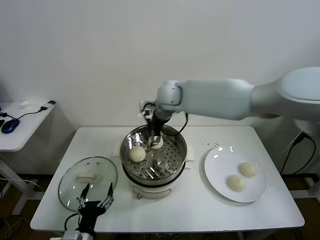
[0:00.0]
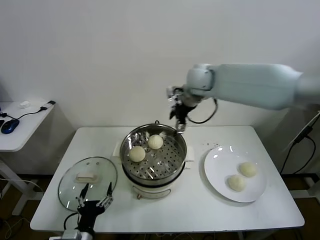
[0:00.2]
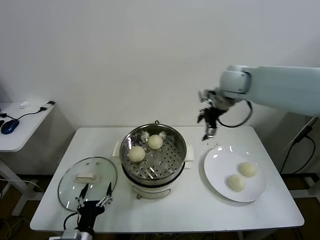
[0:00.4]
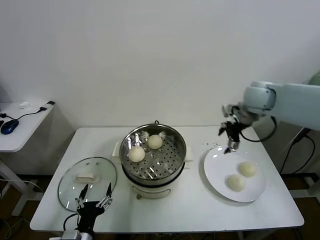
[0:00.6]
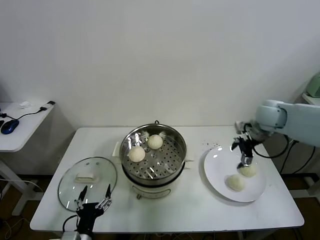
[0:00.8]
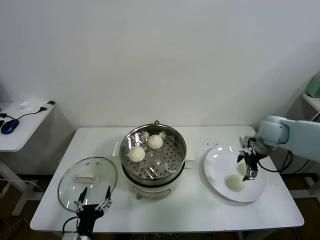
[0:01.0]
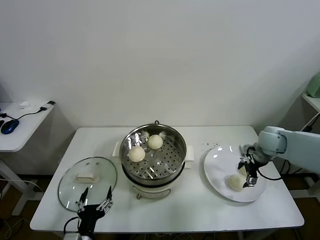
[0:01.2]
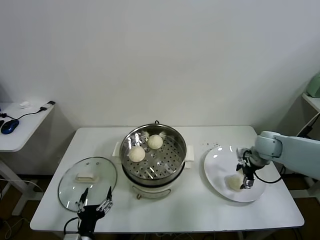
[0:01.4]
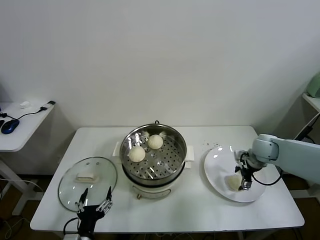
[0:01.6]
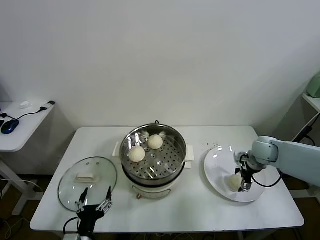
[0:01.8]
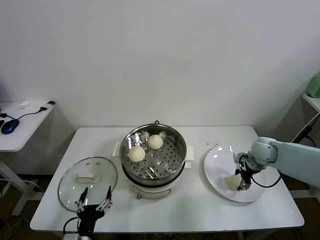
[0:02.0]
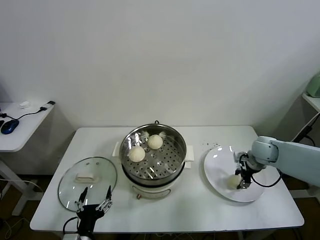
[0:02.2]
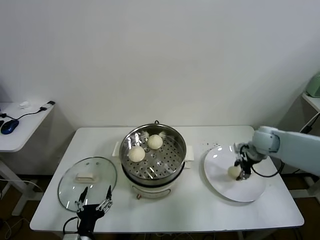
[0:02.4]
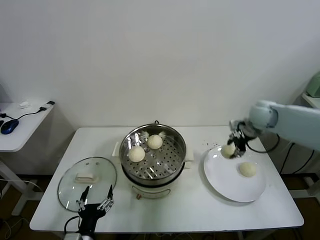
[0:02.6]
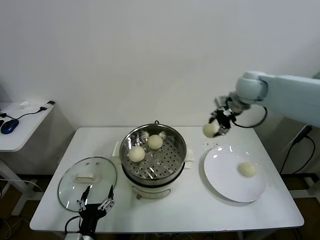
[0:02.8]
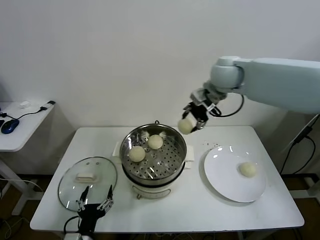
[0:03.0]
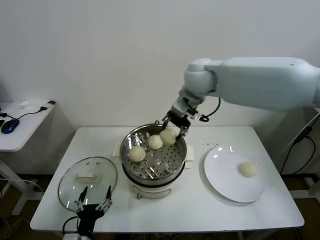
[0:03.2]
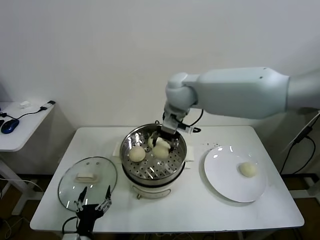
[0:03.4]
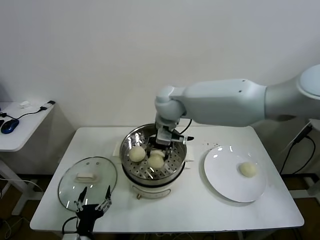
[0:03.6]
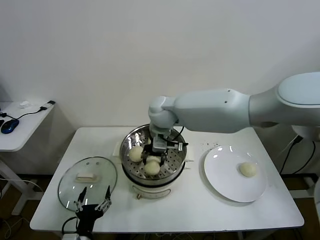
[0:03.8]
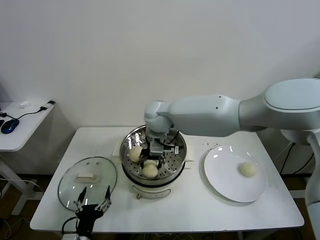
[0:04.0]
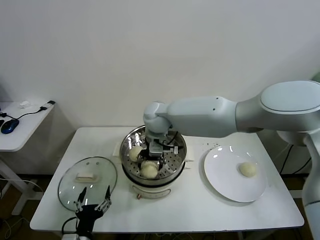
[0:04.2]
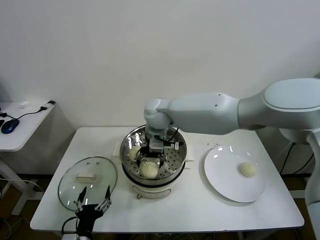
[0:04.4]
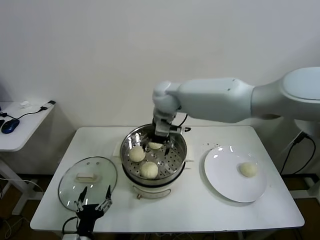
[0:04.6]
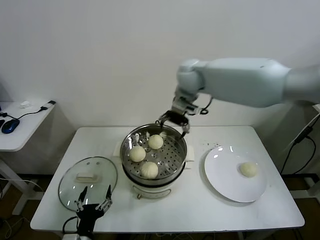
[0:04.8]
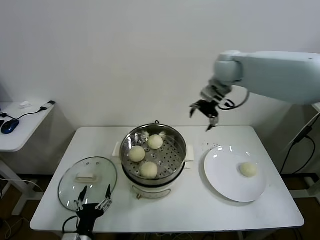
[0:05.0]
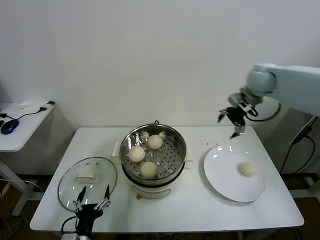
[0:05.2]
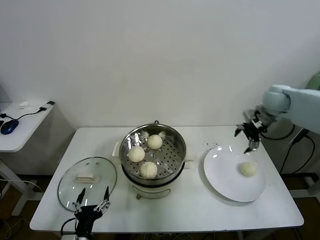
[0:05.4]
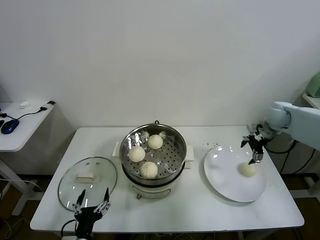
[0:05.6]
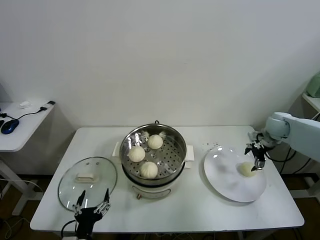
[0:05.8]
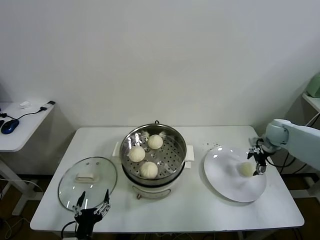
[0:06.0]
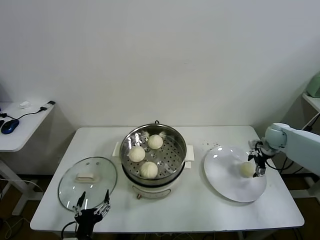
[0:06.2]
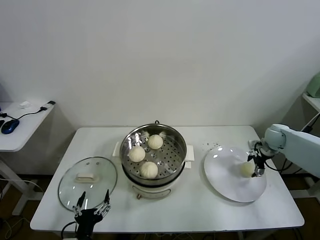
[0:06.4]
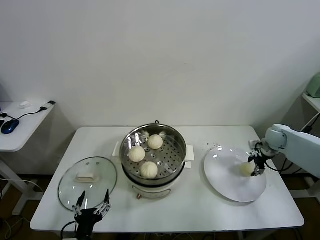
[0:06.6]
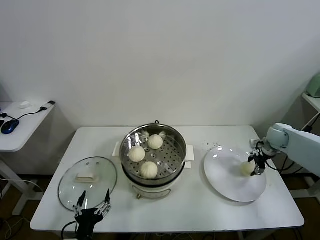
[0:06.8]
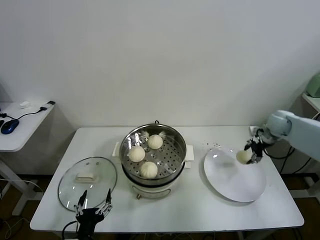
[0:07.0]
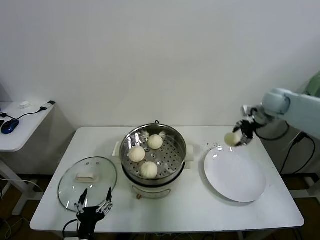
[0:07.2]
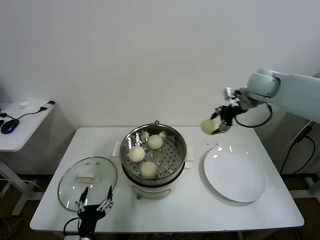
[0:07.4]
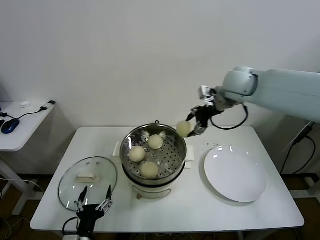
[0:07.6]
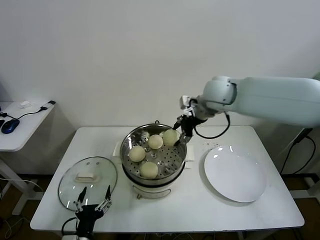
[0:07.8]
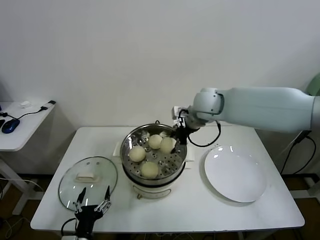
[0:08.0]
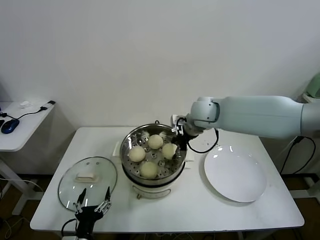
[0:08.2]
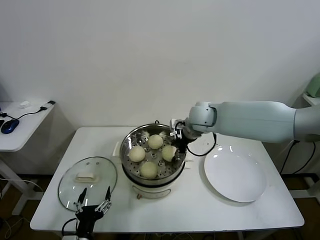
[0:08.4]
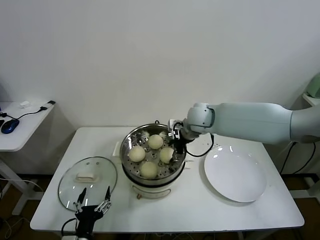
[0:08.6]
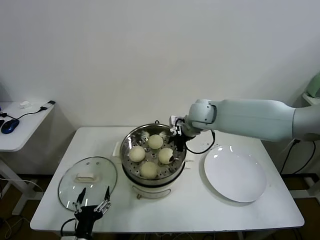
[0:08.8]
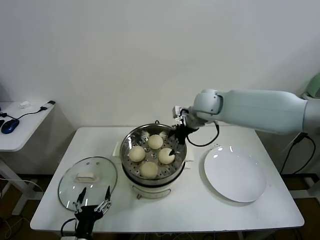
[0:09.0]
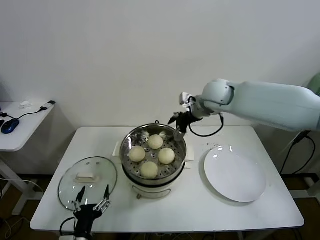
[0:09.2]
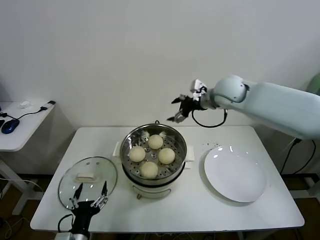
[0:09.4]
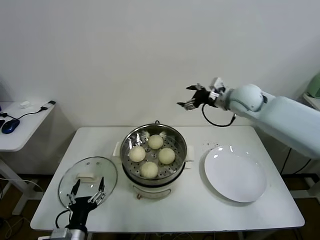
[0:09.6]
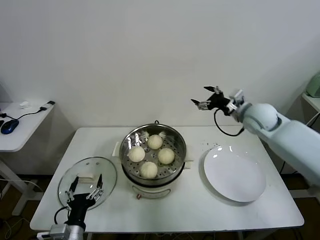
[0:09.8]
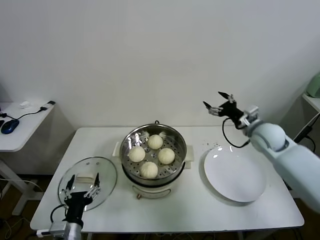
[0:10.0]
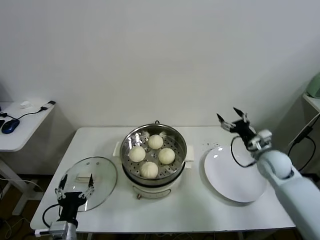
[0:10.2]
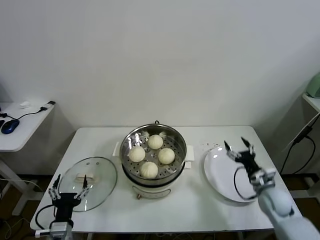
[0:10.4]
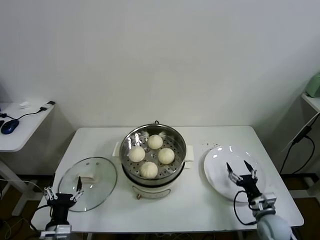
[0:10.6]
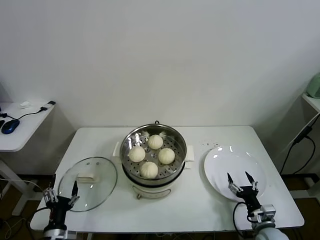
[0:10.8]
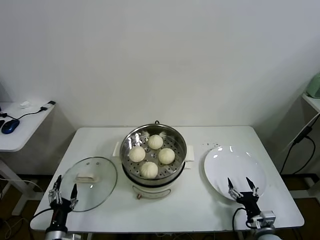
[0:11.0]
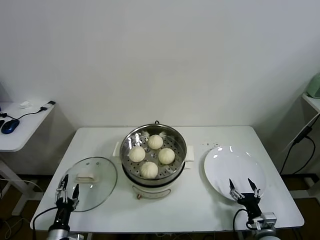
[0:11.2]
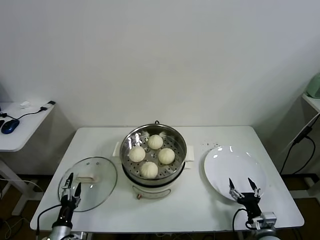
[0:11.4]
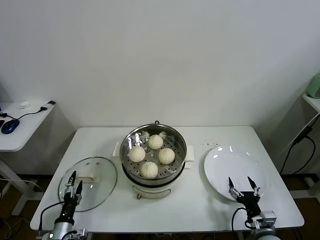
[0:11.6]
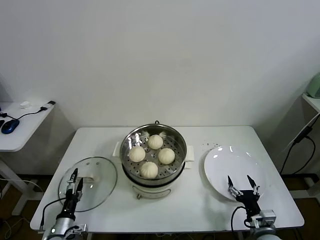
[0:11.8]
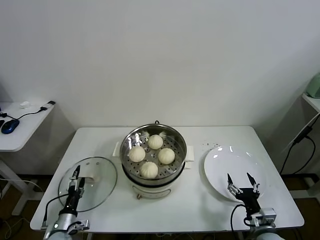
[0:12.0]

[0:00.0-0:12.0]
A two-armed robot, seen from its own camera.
Task of the whole recording: take steamed baozi put them in steamer.
Step, 0:00.0 to 0:02.0: Grasp the baozi in the plate with right gripper.
Step, 0:02.2 to 0:04.2: Place the baozi on the steamer with right gripper.
Step, 0:04.6 to 0:06.4: Grasp the baozi in the plate with right gripper.
Step, 0:06.6 to 0:08.6: Place the baozi on the steamer with right gripper.
0:00.0 to 0:01.6: The right gripper goes some 35 cm to the right and downward.
0:01.6 to 0:03.0: The right gripper is displaced upward and to the left by approximately 35 cm, and closes its fingers.
0:03.0 to 0:04.4: The right gripper shifts about 20 cm to the left and downward, and opens.
0:04.4 to 0:06.0: The right gripper heads to the right, covering roughly 50 cm.
0:06.0 to 0:07.6: The right gripper is displaced to the left and upward by some 30 cm, and closes its fingers.
0:07.6 to 0:09.0: The right gripper is displaced downward and to the left by roughly 10 cm, and opens its fingers.
0:09.0 to 0:10.4: The left gripper travels to the left by some 5 cm; the right gripper goes about 40 cm downward, to the right and backward.
0:10.4 to 0:12.0: The left gripper goes about 15 cm downward, to the left and forward; the right gripper moves backward, roughly 15 cm.

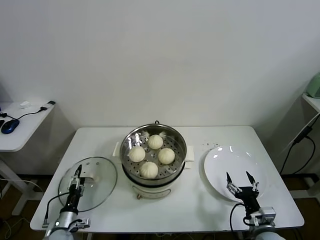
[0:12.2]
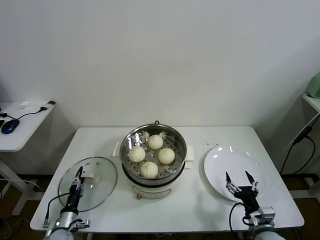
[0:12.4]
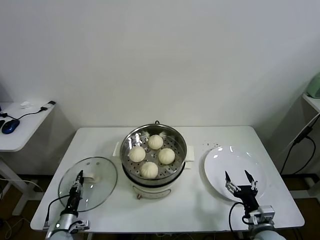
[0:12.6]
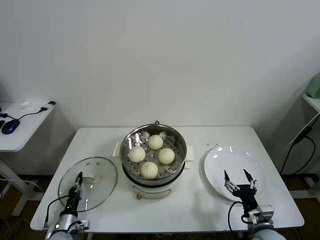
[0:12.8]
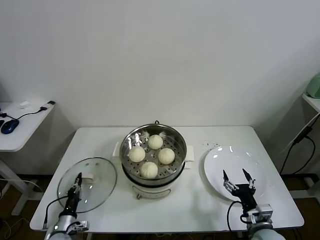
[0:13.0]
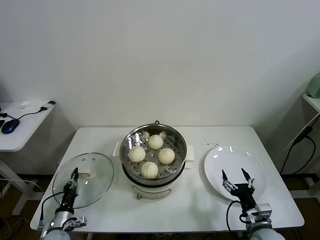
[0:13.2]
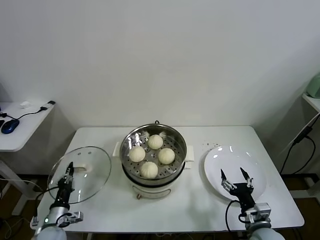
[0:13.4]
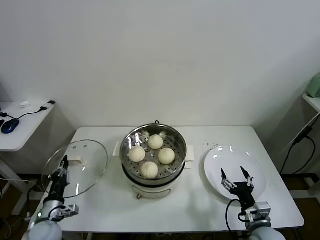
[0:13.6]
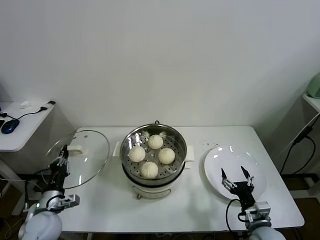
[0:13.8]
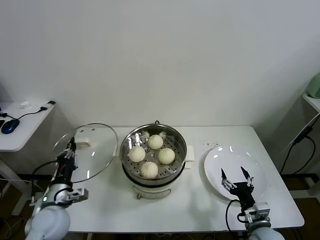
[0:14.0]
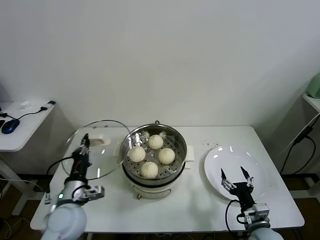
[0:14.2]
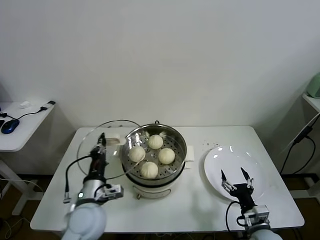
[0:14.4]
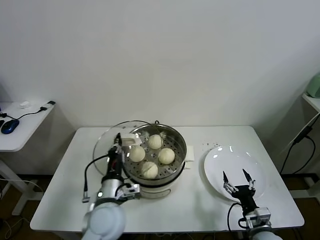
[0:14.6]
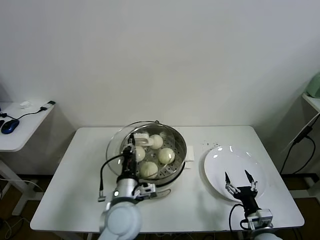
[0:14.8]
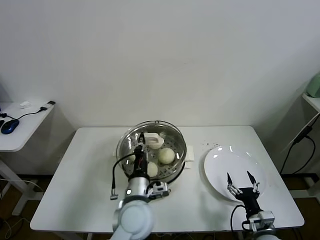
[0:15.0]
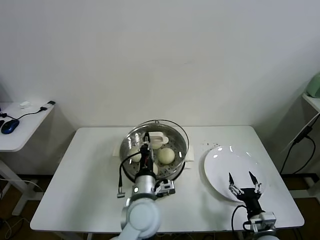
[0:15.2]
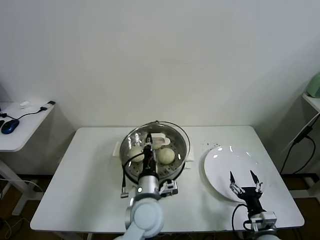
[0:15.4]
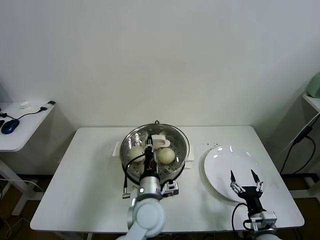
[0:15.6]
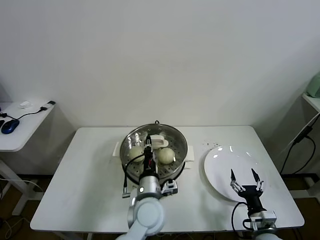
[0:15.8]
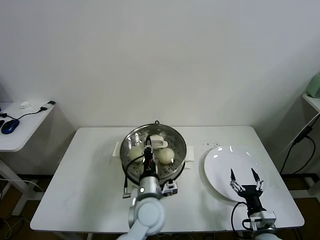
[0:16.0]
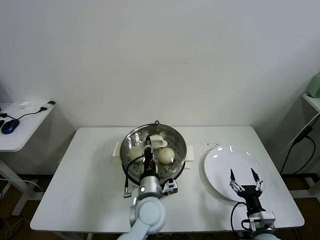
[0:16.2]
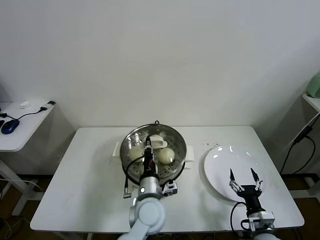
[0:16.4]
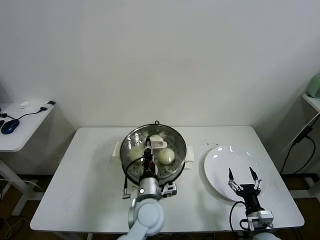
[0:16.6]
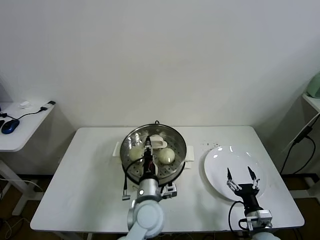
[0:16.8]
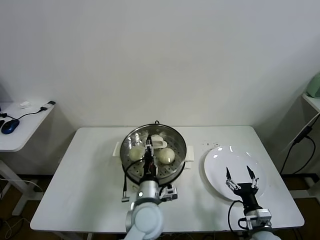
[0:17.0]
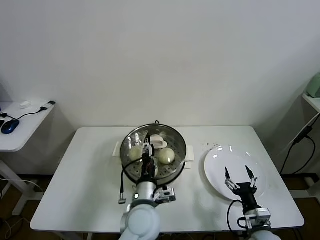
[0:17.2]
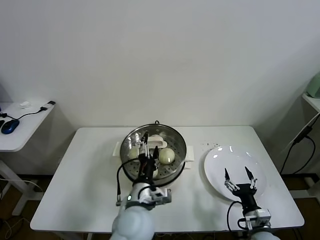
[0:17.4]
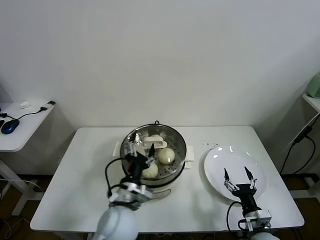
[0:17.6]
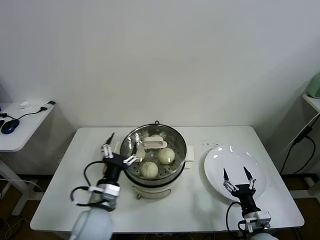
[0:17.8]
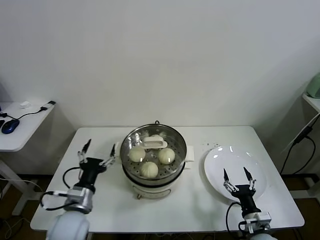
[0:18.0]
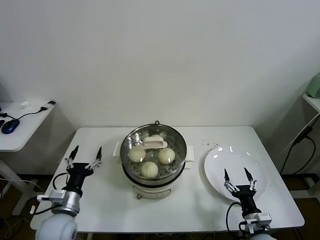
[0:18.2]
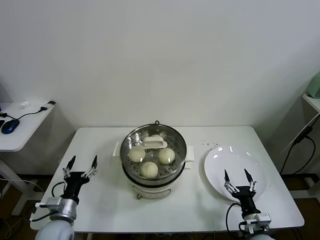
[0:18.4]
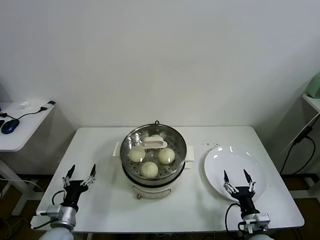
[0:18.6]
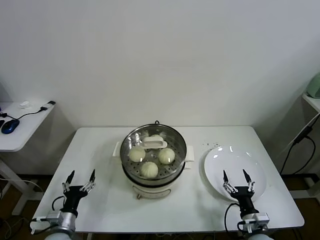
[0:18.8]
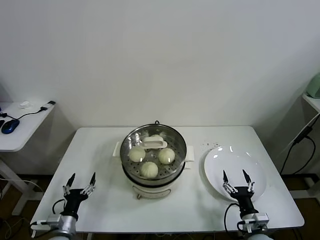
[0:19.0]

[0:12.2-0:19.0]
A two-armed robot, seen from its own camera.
Task of the whole recording: take steamed baozi put them in steamer.
Step, 0:13.0 to 0:17.2: Place the pot lid on the steamer with left gripper.
0:12.2 to 0:13.6: The left gripper is displaced upward by roughly 10 cm, and closes up.
0:13.6 to 0:15.0: The left gripper goes some 35 cm to the right and upward.
0:15.0 to 0:16.2: The left gripper changes place by about 5 cm.
0:16.2 to 0:17.6: The left gripper is displaced to the left by some 5 cm, and opens.
0:17.6 to 0:19.0: The left gripper heads to the left and downward, covering about 30 cm.
